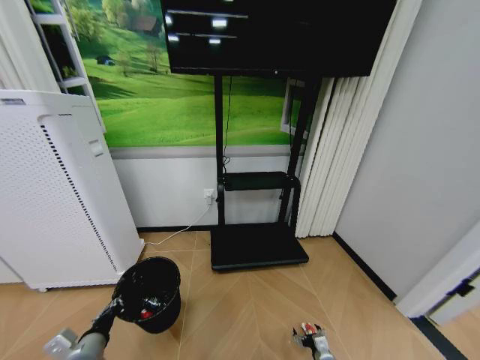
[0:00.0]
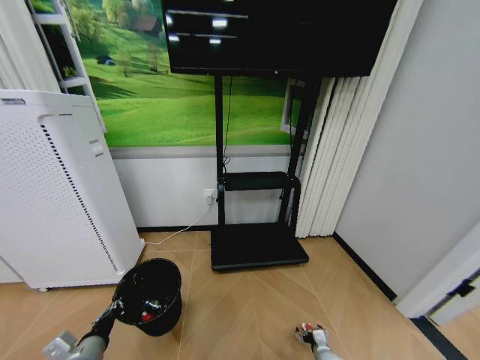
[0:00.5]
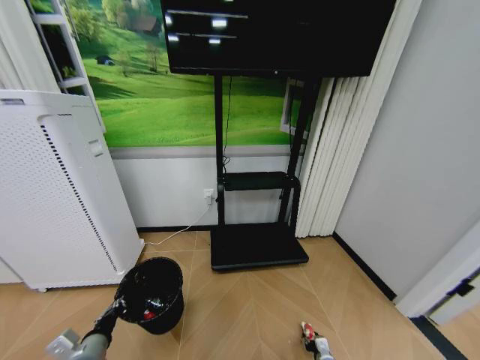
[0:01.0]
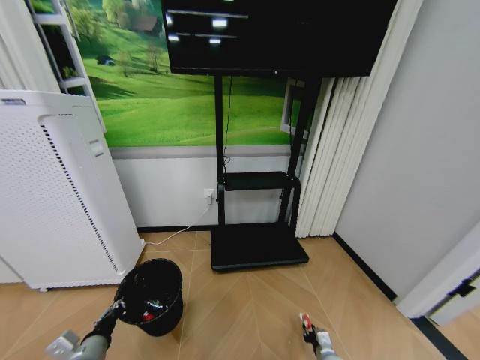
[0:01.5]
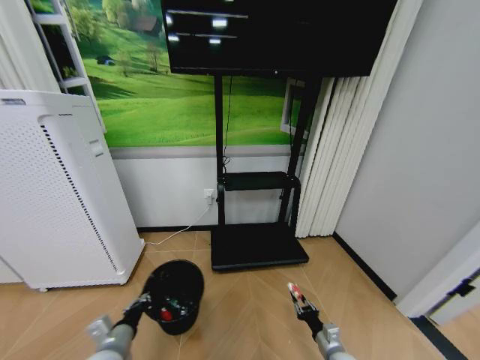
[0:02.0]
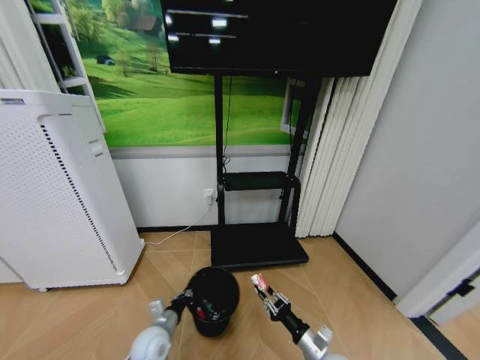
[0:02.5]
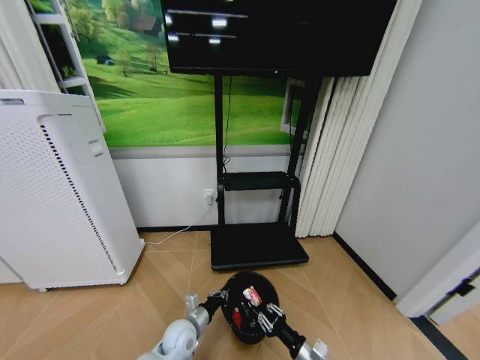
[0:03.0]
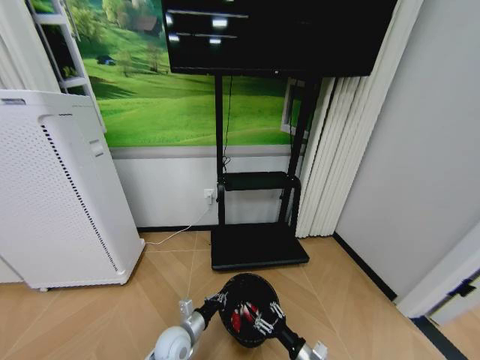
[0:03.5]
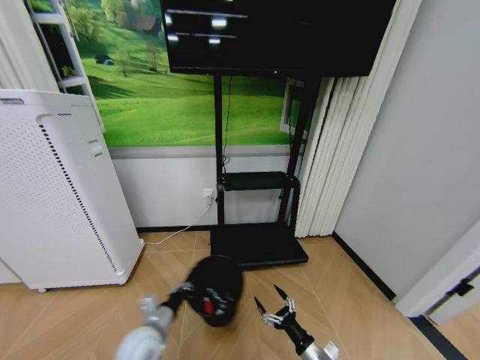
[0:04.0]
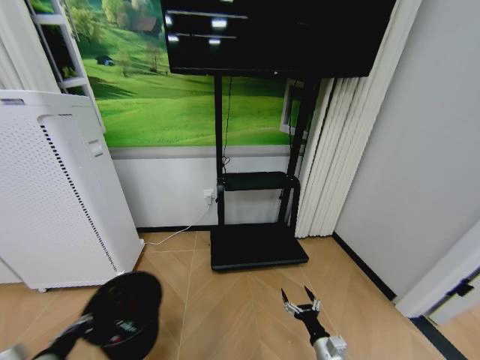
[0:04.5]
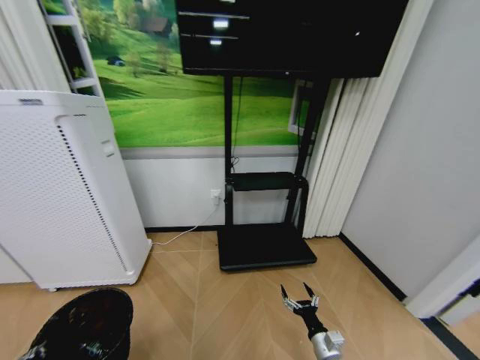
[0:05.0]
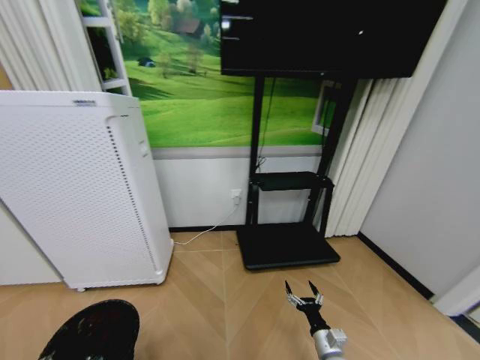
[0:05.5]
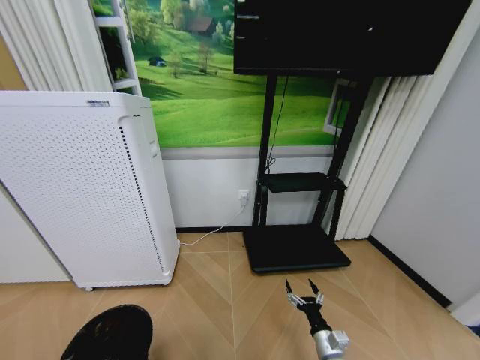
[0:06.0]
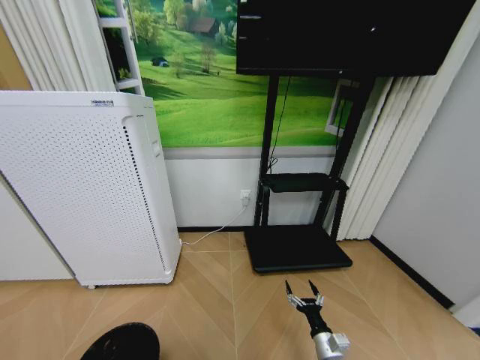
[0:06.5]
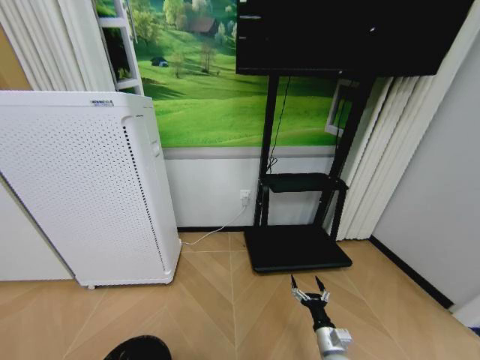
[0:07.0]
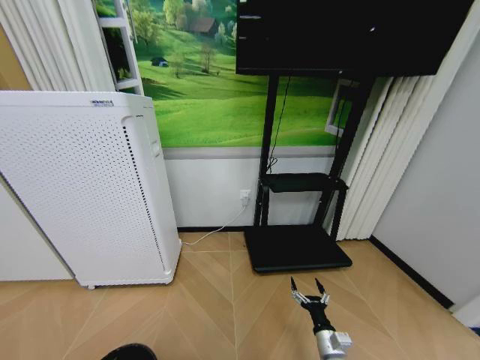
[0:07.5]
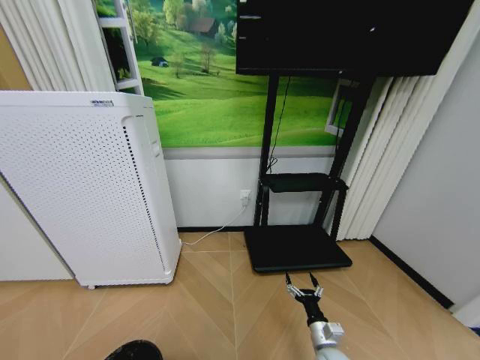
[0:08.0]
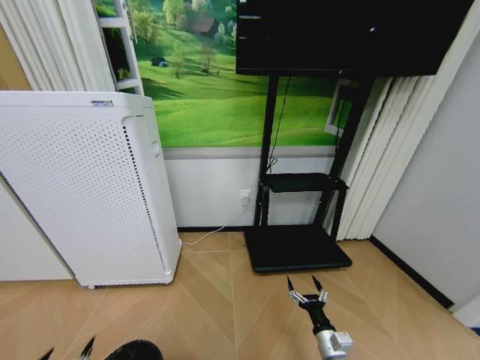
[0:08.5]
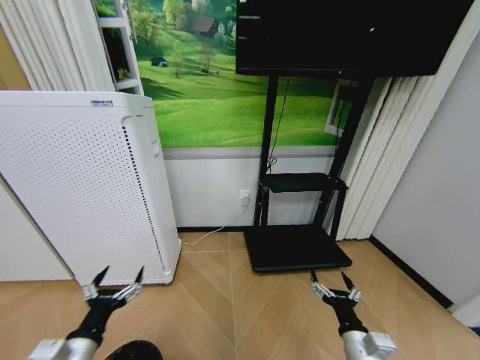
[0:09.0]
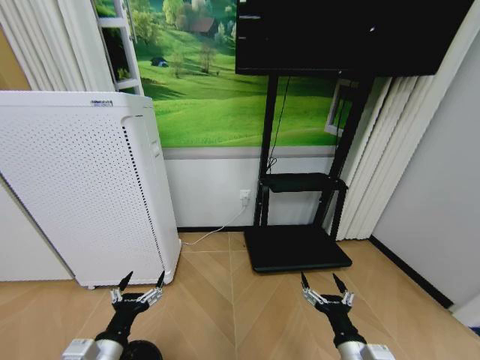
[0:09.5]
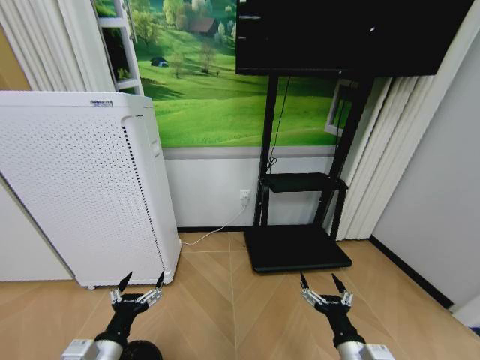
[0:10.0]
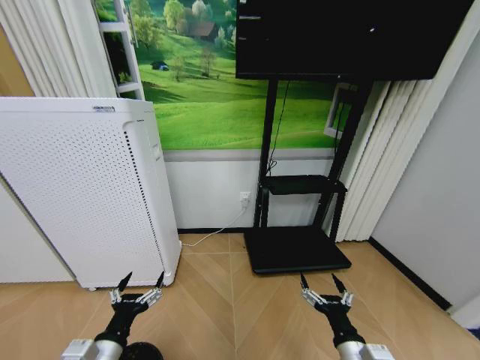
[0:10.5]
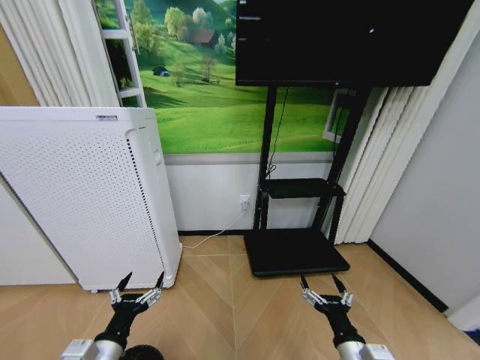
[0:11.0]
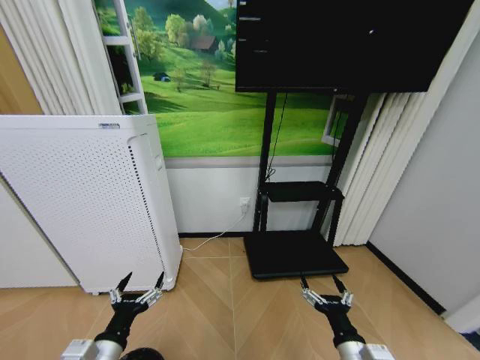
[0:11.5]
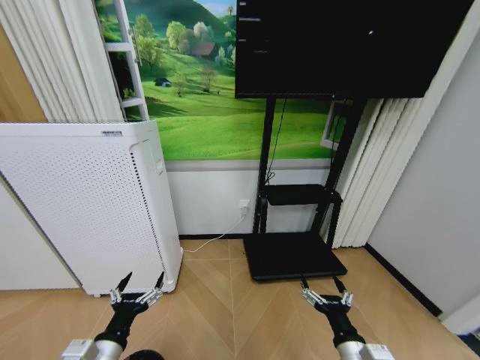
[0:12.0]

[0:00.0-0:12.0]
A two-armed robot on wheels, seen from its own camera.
Task of the whole recording: Pick up the trash bin and place the garbage on the floor into it.
0:00.0 to 0:02.0: The right gripper shifts roughly 10 cm upward, and closes, while the left gripper travels to the right by some 5 cm.
0:02.0 to 0:04.0: The right gripper moves to the left, roughly 5 cm, and opens its fingers, while the left gripper goes roughly 5 cm to the right.
0:04.0 to 0:06.0: The left gripper shifts roughly 25 cm backward and to the left.
0:06.0 to 0:08.0: The left gripper is displaced backward by some 5 cm, and opens.
0:08.0 to 0:10.0: The right gripper travels upward and backward by roughly 20 cm. Meanwhile the left gripper moves to the right, forward and upward, approximately 20 cm.
0:10.0 to 0:12.0: Both grippers stay put.

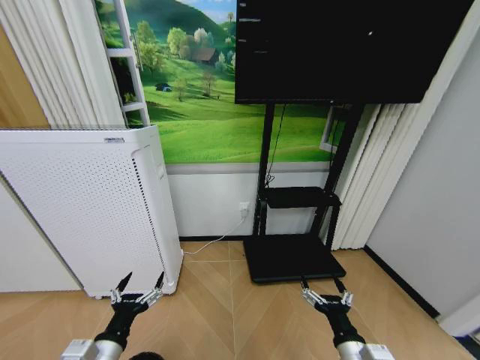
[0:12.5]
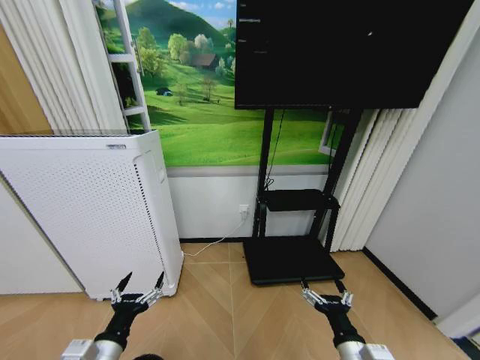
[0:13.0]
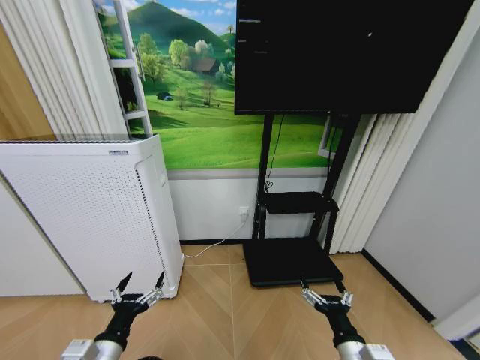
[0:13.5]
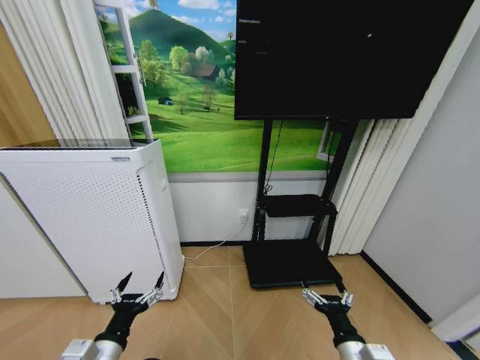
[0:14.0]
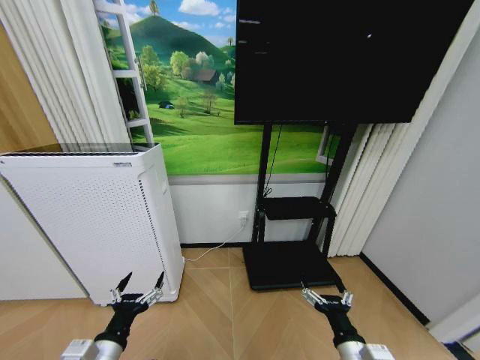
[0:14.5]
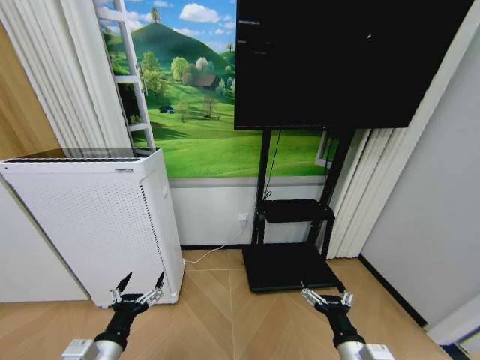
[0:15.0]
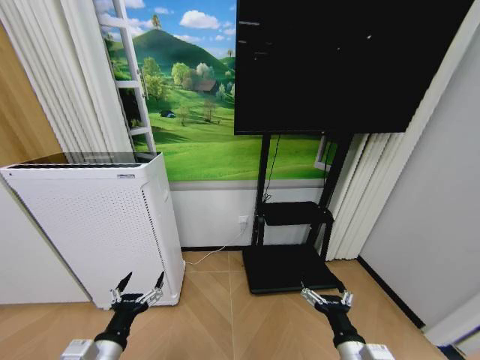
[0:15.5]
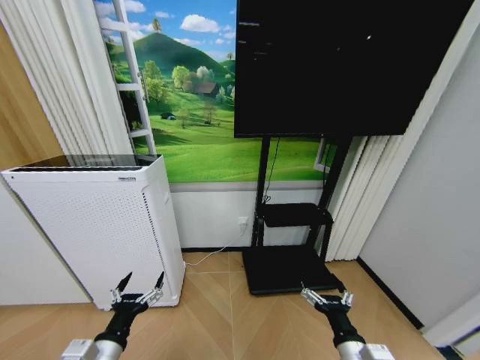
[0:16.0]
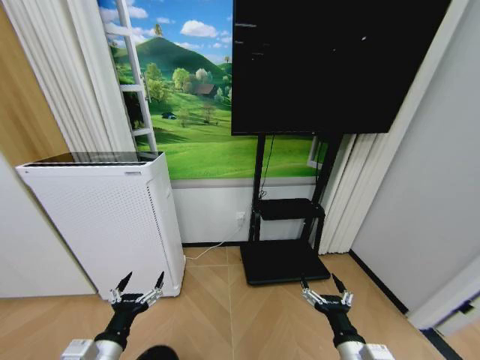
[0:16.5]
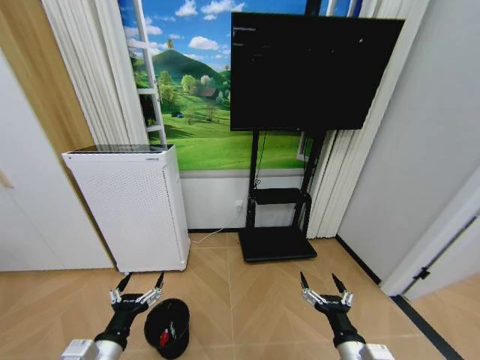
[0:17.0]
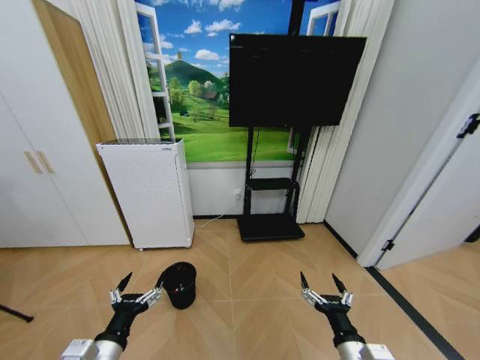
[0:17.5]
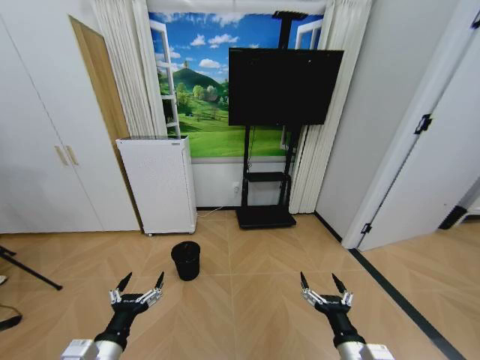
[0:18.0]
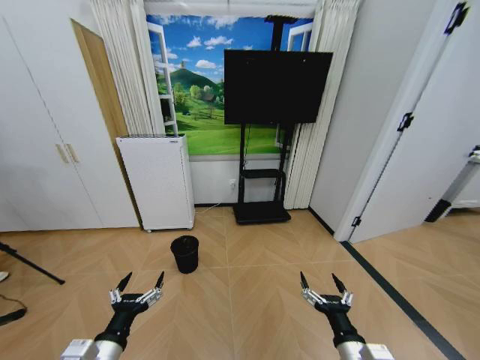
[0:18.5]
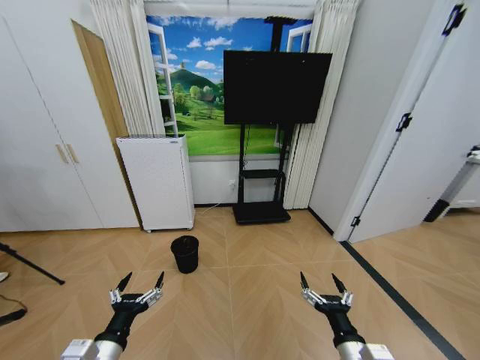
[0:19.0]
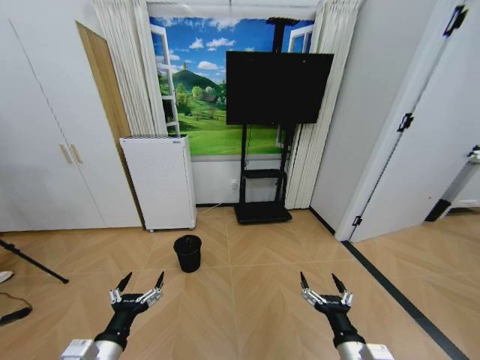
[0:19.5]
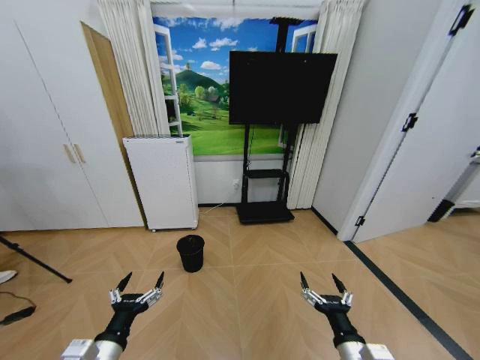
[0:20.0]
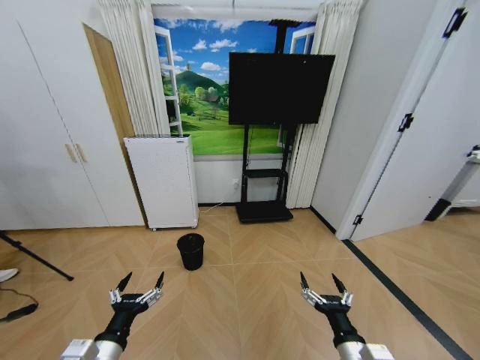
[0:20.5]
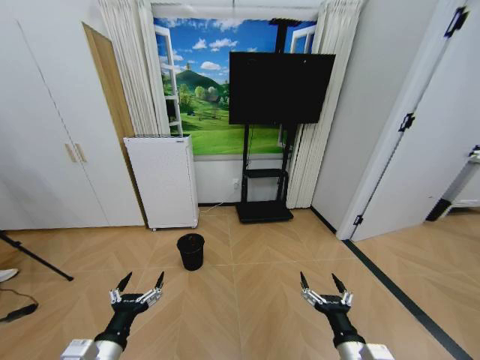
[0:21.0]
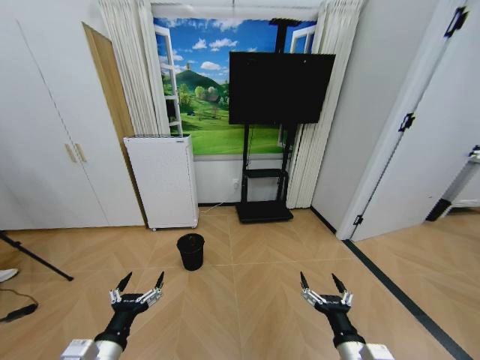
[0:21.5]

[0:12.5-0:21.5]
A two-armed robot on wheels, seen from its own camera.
Task of the whole recording: Pick up the trash bin and place the garbage on the floor into it.
0:12.5 to 0:14.5: Both grippers stay put.
0:19.5 to 0:21.5: Both grippers stay about where they are.
